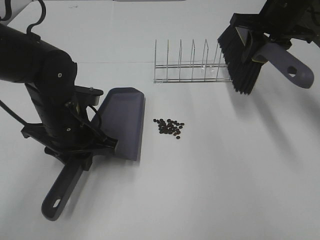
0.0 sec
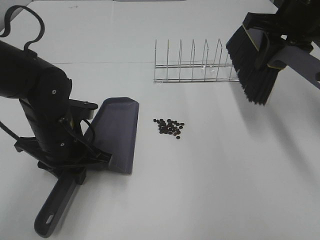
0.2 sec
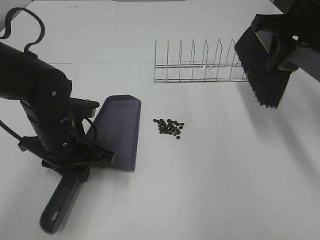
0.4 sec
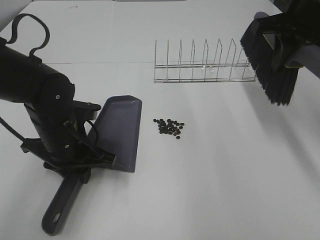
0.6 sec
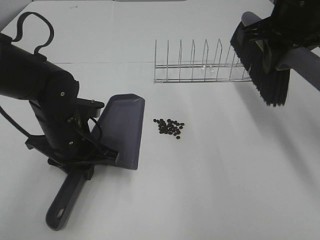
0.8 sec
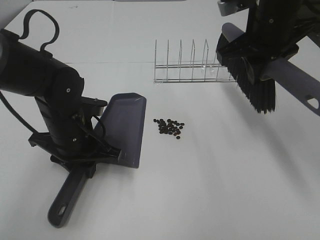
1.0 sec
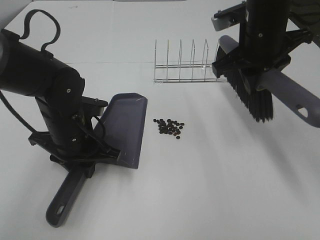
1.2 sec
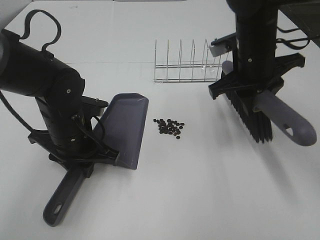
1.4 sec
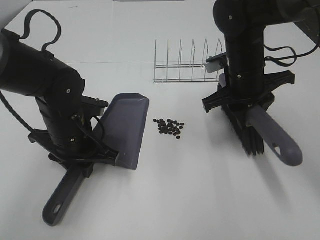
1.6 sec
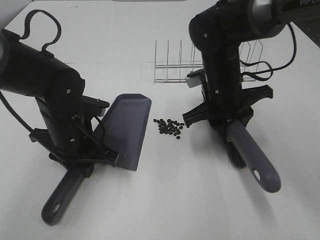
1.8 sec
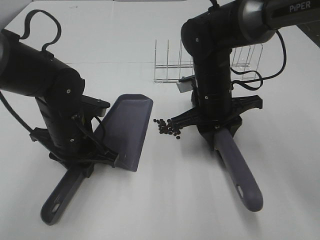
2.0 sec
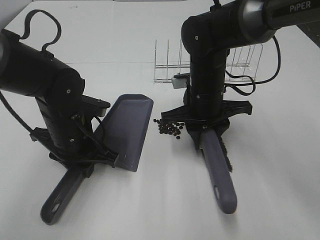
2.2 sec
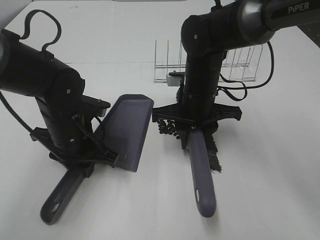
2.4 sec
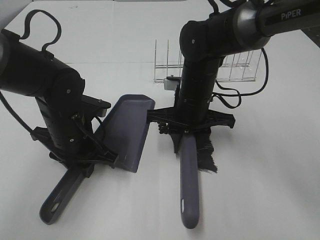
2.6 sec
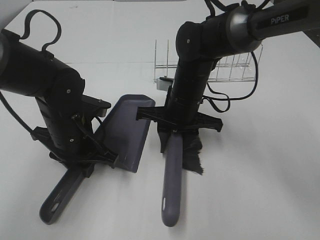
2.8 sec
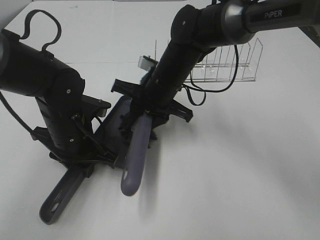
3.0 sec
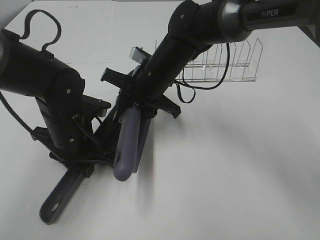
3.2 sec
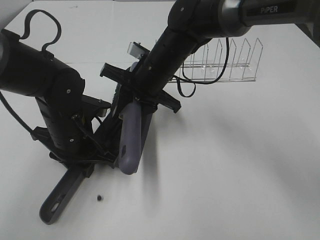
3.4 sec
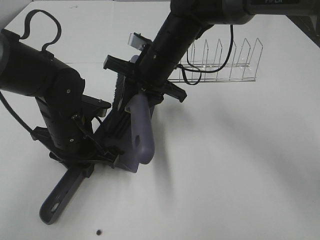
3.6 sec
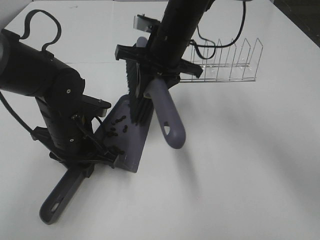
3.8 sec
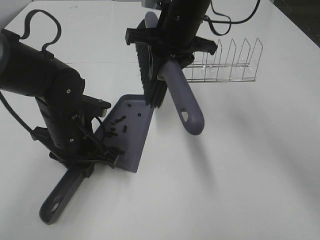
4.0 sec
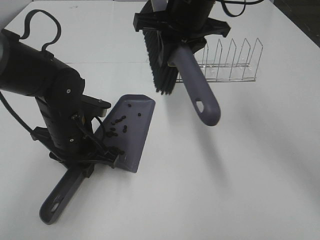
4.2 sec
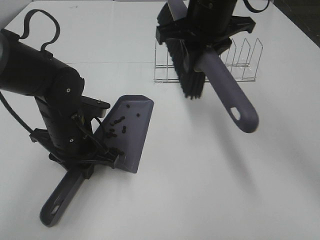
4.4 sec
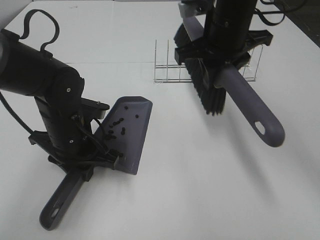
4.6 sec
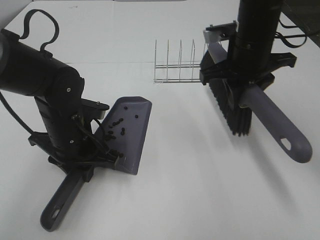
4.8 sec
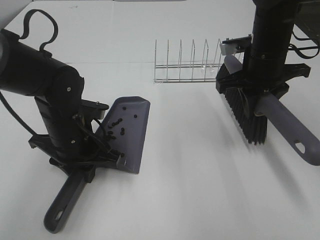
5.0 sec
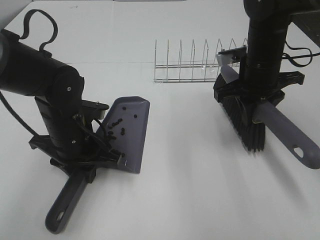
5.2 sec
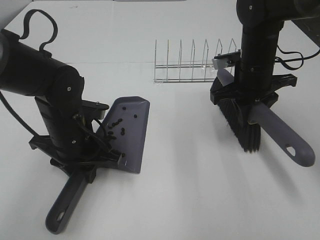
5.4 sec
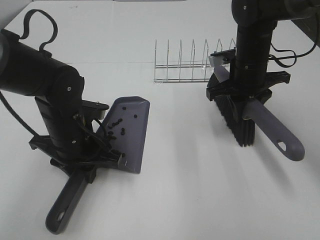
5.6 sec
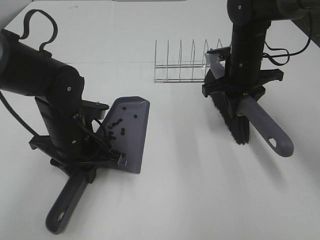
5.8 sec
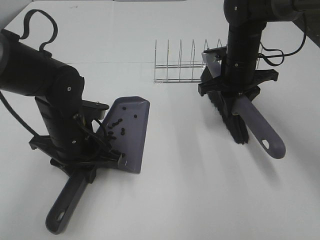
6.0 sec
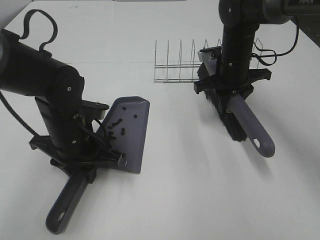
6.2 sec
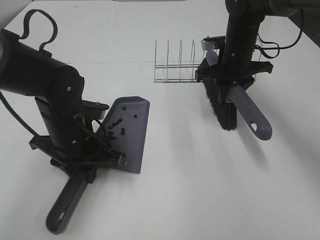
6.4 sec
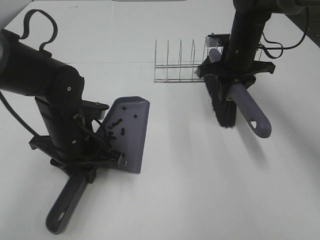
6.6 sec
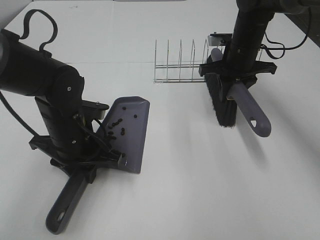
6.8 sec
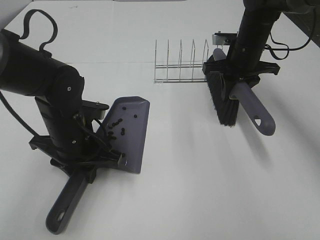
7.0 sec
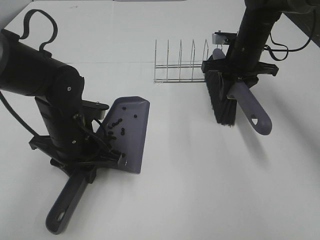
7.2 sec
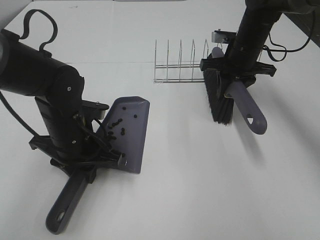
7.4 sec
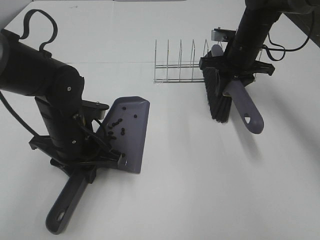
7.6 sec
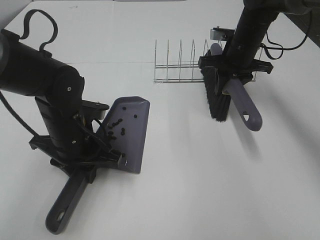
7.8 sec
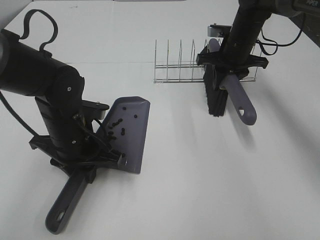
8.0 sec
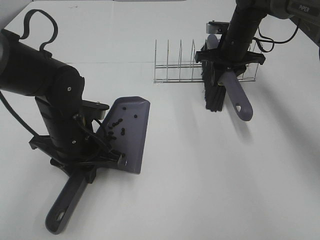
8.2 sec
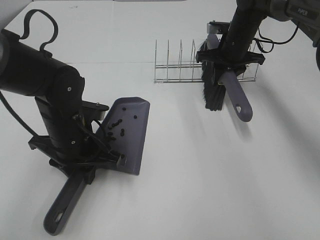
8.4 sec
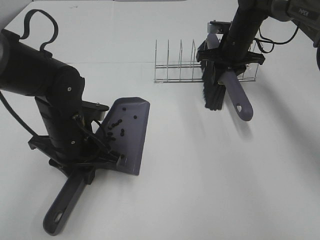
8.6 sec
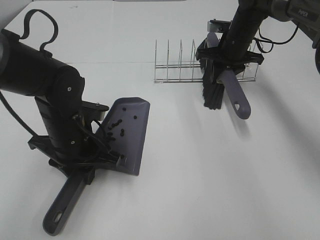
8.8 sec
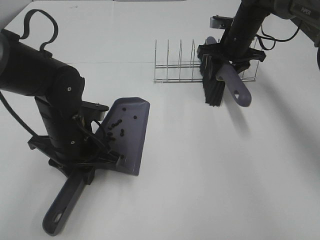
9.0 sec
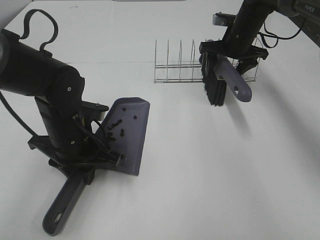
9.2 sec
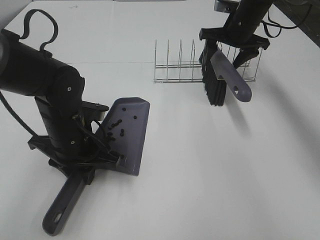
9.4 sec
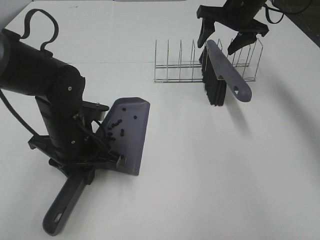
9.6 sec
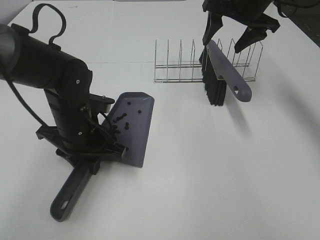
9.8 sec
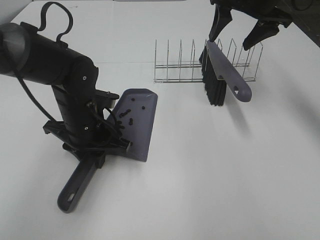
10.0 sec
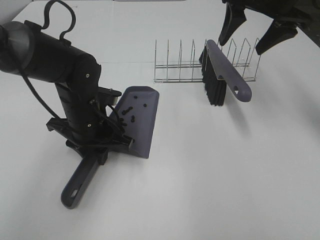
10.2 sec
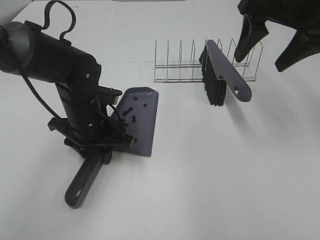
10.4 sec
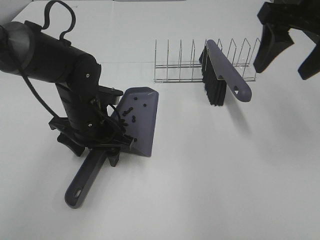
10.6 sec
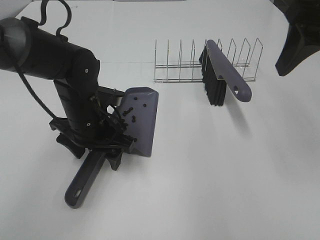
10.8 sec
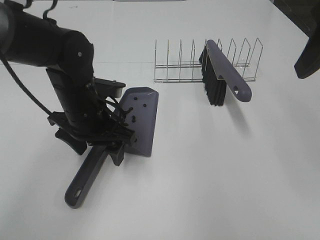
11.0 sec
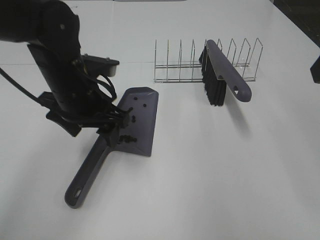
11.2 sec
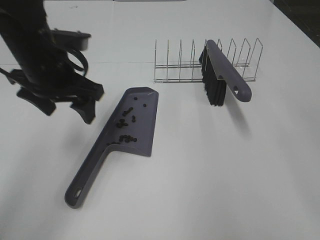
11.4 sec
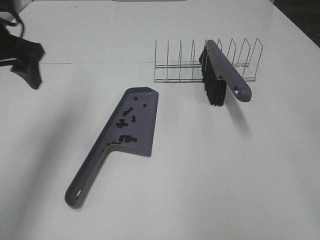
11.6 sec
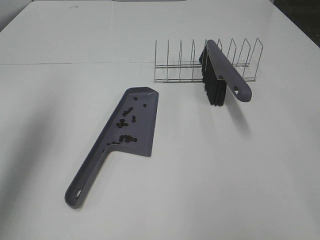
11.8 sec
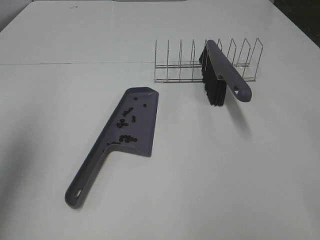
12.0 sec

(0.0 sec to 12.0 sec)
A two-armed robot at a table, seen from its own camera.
Task of the whole recording: Sweep Coffee Bean.
Step, 0.0 sec - 3.8 sec: Right hand:sweep the coffee beans into the dustpan.
Step, 4.0 sec - 9.2 sec: Right hand:place the broom on the rack.
Step, 9.4 sec - 10.4 sec: Left hand:place the dustpan on the table.
0.0 sec - 1.6 sec: The right gripper travels to the left, downward and backward by some 15 cm.
1.6 sec - 3.0 sec: The right gripper shifts some 15 cm to the left.
3.0 sec - 4.4 sec: The right gripper goes some 15 cm upward and to the right.
4.4 sec - 6.0 sec: The right gripper goes roughly 15 cm downward and to the right.
6.0 sec - 7.6 sec: There are only small adjustments of the grippers.
7.6 sec - 9.0 sec: The right gripper goes about 5 cm forward.
9.0 sec - 10.4 sec: The right gripper travels backward and upward by some 25 cm.
10.4 sec - 12.0 sec: The right gripper moves backward, approximately 25 cm, while the left gripper is displaced to the left and upward by approximately 30 cm, and opens.

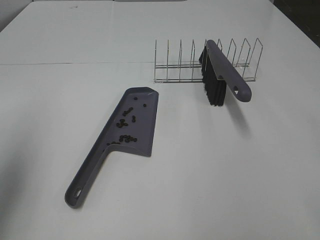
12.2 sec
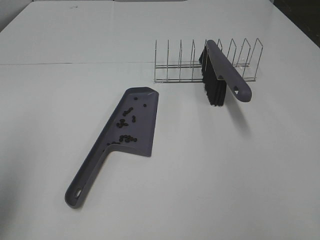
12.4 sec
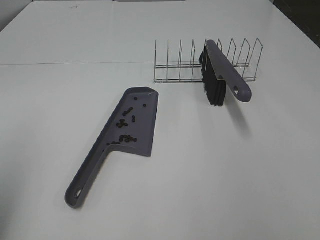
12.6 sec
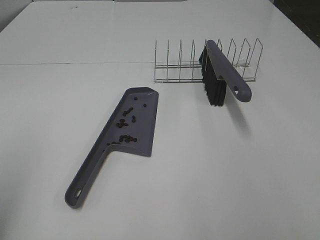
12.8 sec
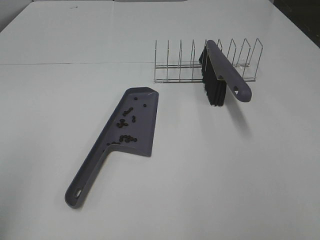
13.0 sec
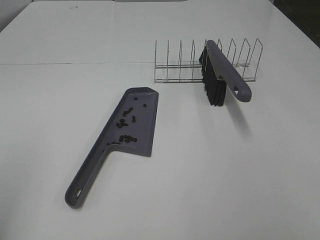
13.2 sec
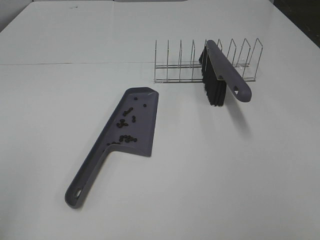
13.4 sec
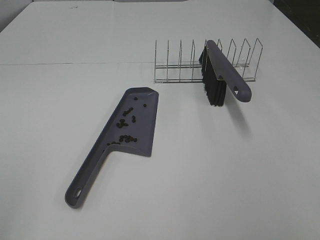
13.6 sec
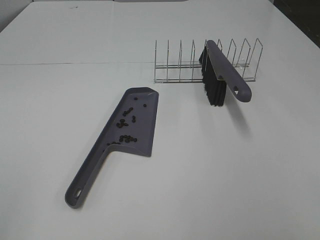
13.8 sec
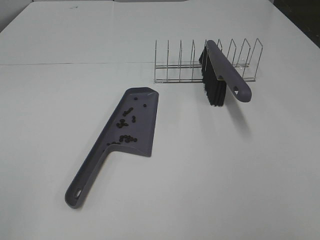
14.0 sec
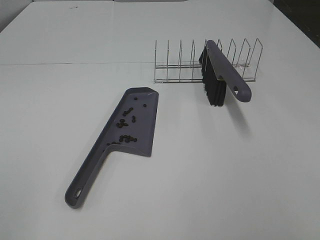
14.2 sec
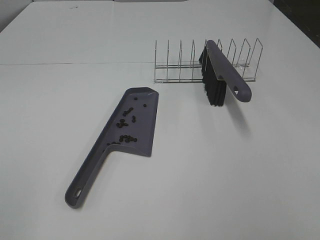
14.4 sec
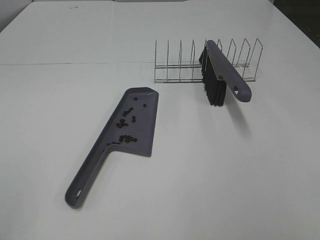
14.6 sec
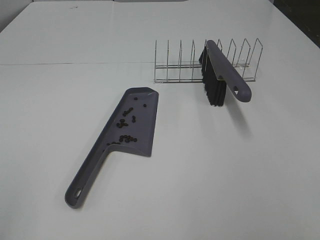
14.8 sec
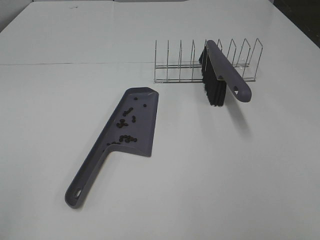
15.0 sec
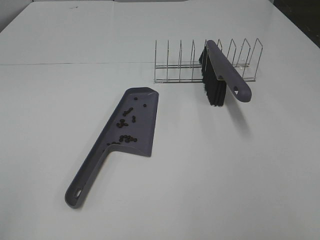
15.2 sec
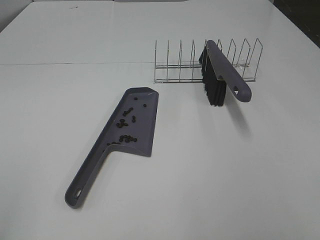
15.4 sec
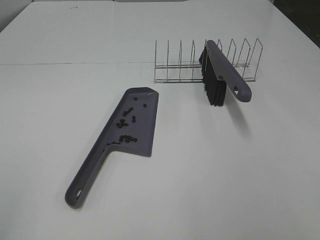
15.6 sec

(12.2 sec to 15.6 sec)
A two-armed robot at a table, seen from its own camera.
Task of the whole recording: Sweep Coffee Bean.
12.2 sec - 13.8 sec: The left gripper shifts some 20 cm backward.
